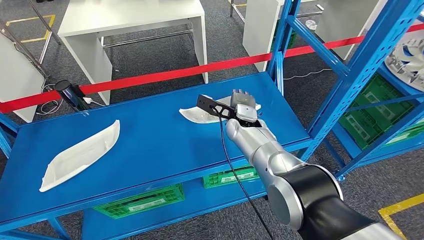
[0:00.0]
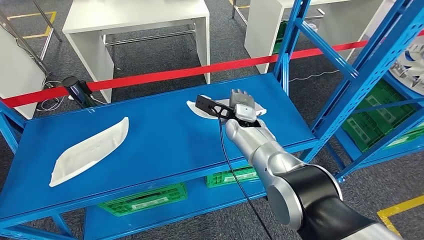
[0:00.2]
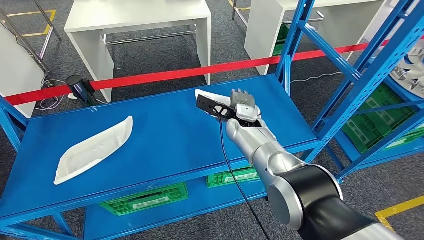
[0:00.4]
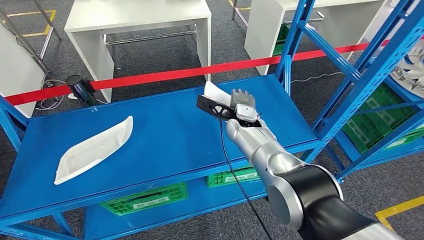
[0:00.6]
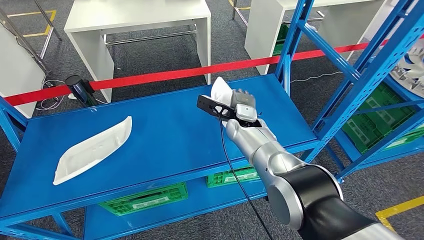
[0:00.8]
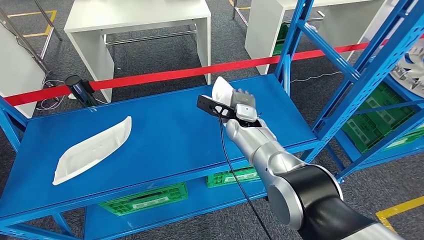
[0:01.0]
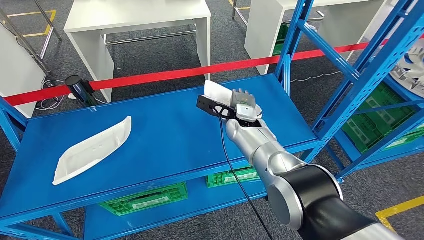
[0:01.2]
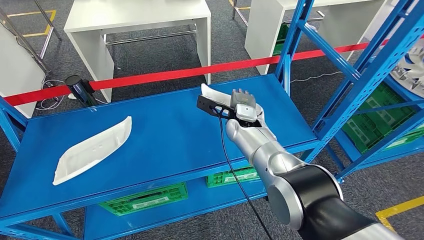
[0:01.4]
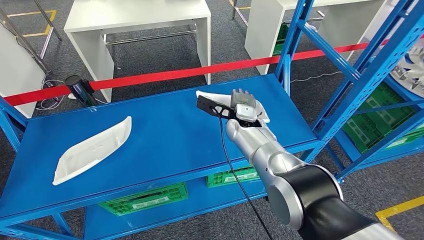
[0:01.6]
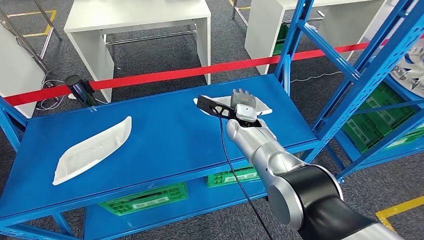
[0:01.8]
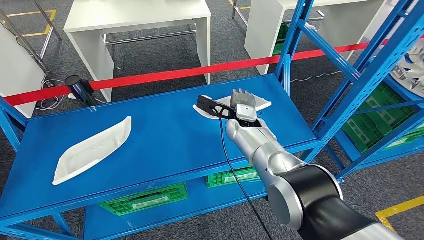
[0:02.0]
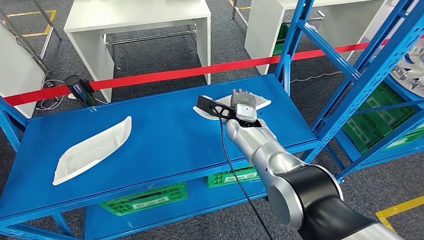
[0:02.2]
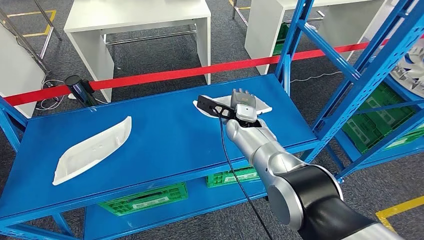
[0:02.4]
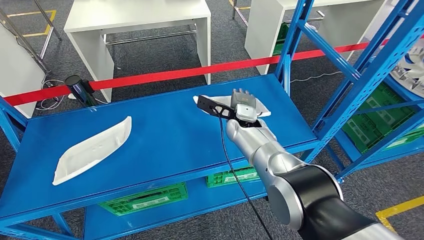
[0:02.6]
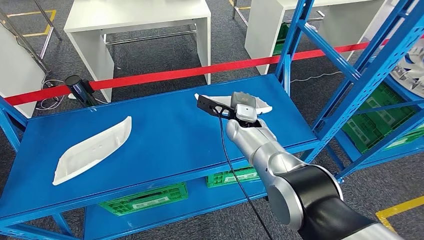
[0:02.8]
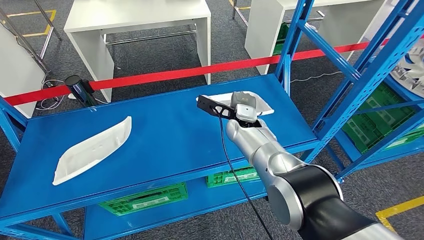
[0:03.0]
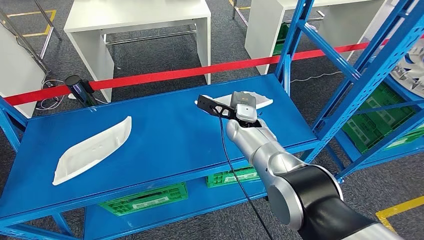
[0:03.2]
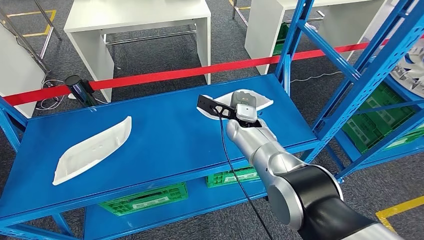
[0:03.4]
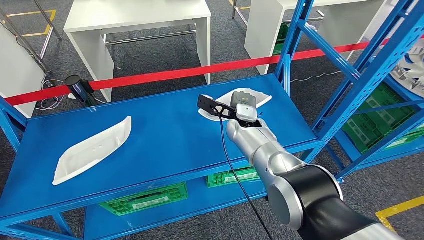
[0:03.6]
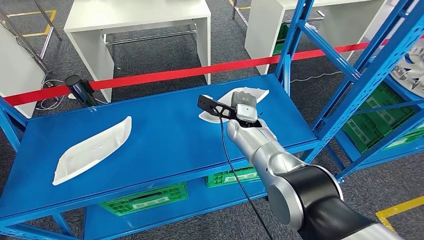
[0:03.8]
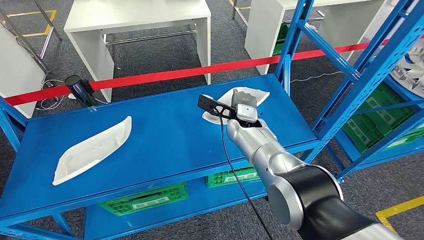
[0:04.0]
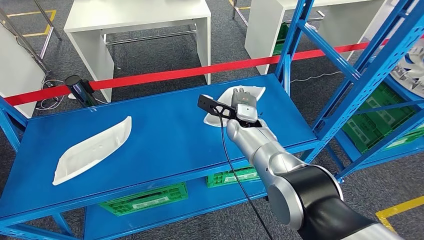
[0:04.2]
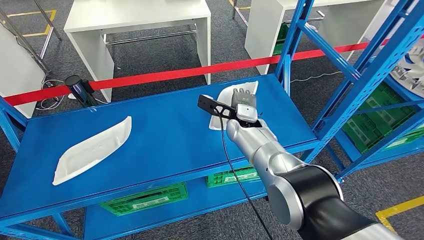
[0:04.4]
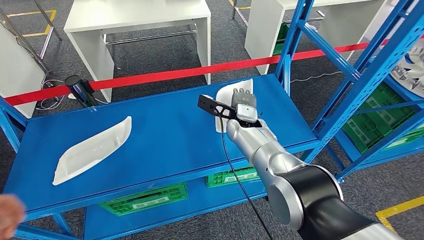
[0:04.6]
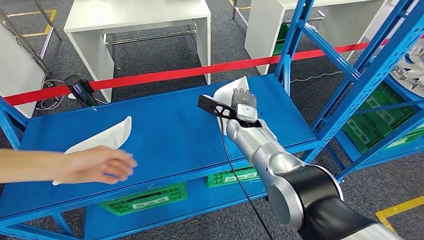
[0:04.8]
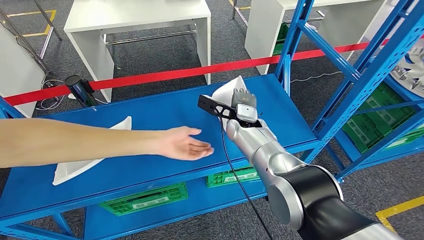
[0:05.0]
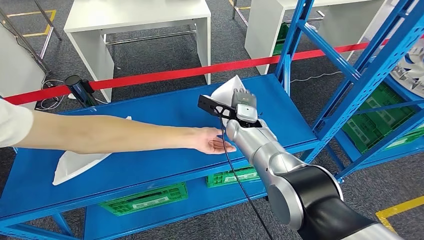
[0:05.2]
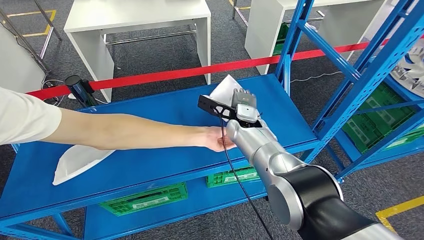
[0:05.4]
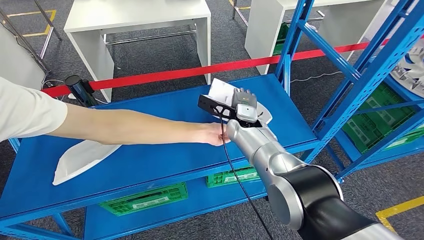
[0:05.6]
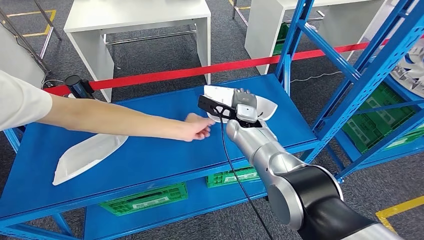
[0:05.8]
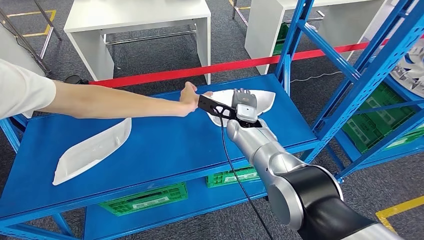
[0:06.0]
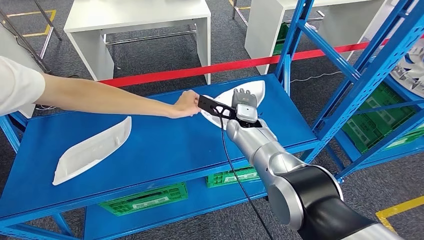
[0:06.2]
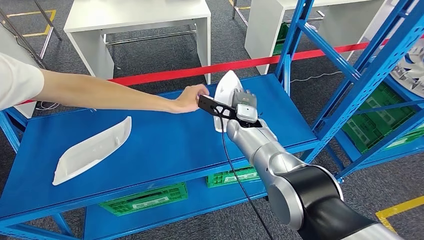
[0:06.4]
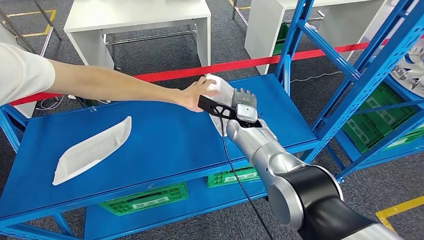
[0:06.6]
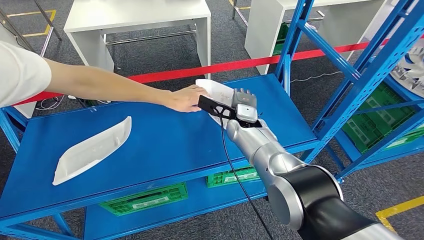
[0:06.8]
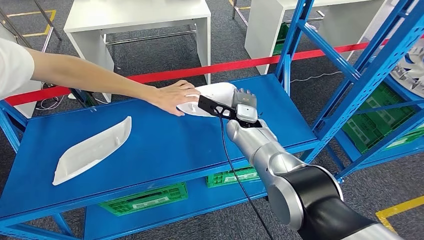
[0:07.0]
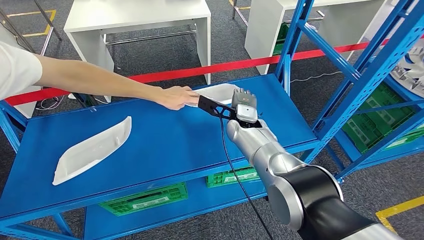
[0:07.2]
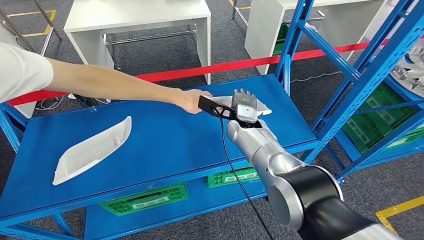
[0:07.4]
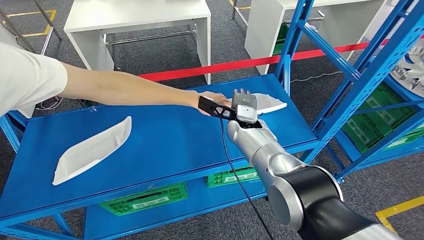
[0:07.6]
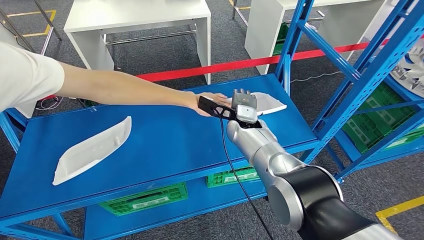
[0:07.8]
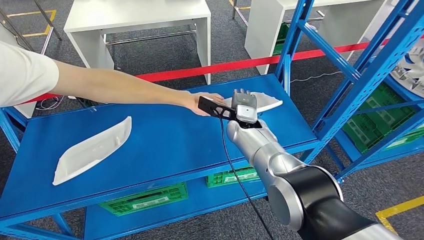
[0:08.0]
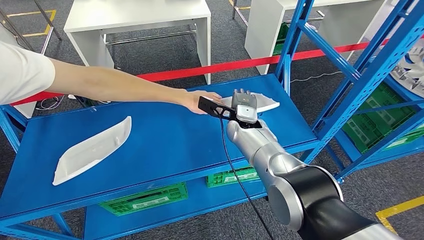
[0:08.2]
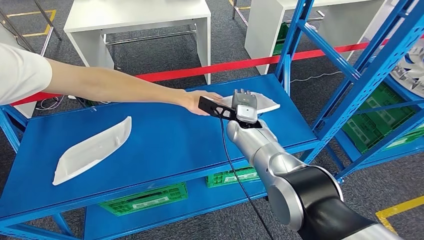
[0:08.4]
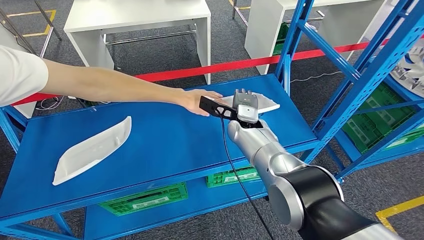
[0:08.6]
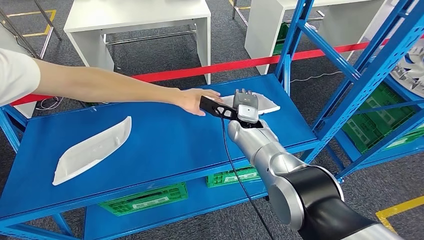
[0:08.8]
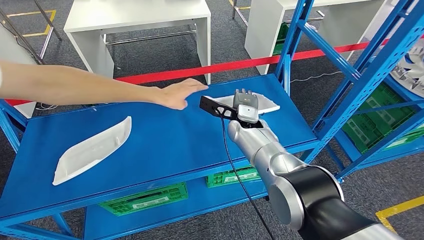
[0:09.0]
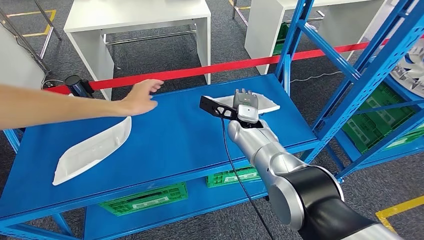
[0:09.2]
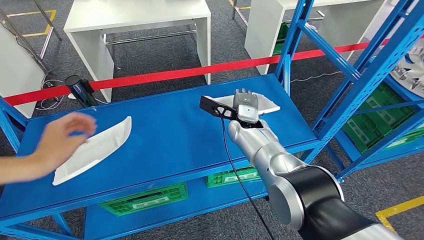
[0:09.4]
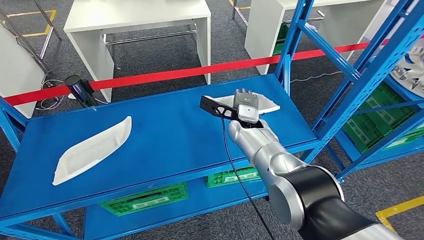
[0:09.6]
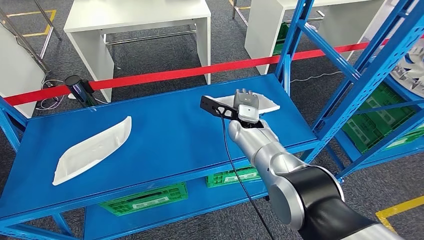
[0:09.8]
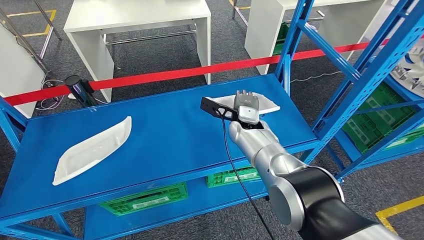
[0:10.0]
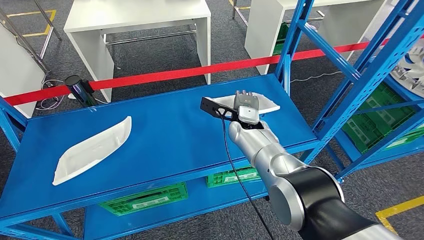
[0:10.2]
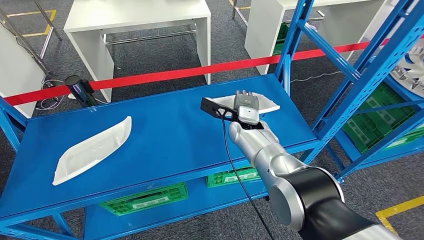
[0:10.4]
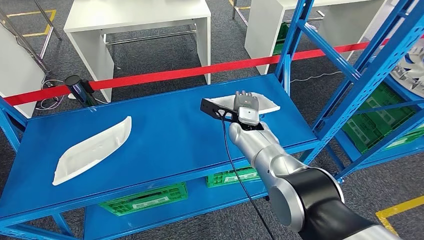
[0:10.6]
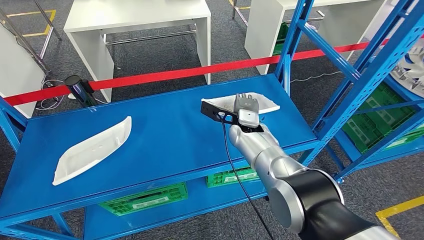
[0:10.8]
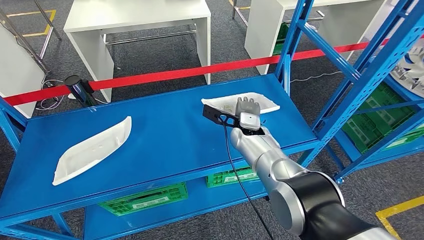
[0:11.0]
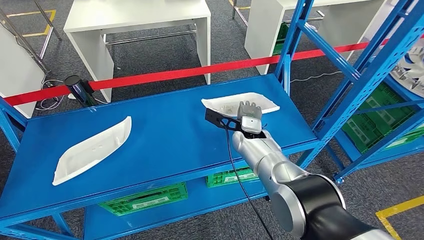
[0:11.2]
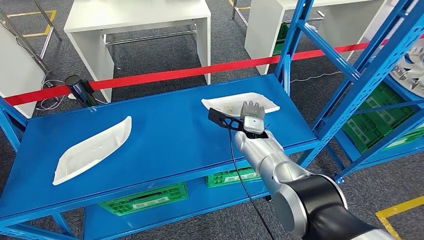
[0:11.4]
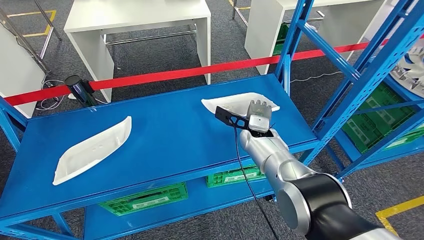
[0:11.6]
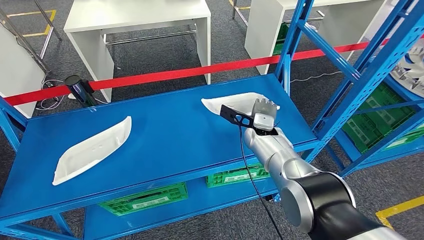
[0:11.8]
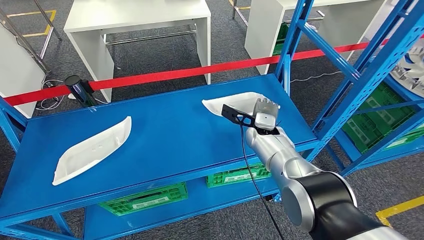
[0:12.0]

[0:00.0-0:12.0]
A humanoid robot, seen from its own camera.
0:01.6 to 0:10.4: Neither hand changes place.
0:10.4 to 0:12.0: The right hand travels to the right by approximately 5 cm.

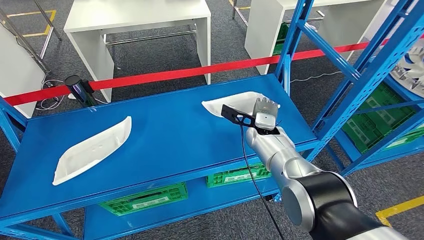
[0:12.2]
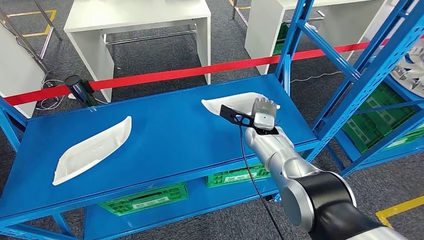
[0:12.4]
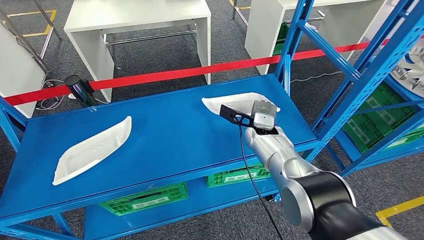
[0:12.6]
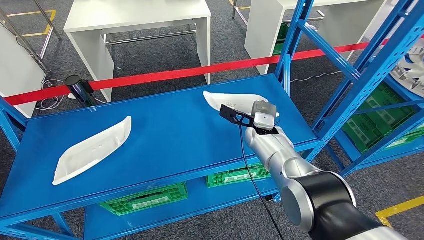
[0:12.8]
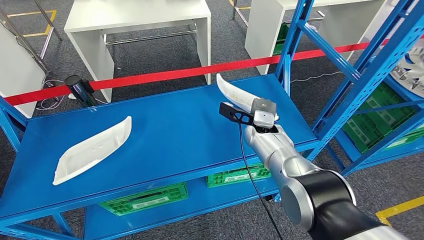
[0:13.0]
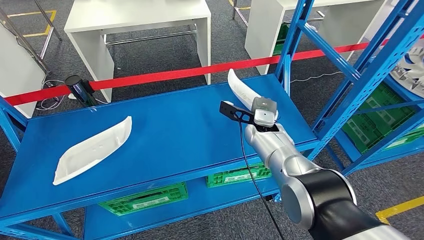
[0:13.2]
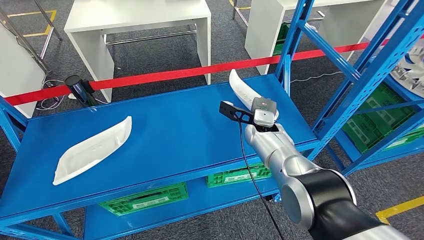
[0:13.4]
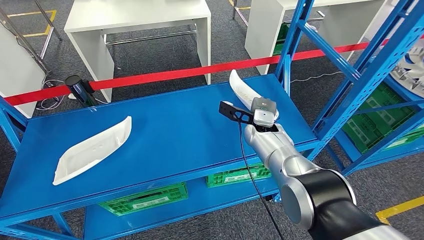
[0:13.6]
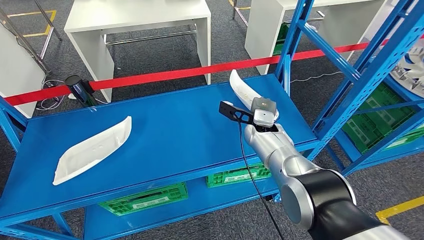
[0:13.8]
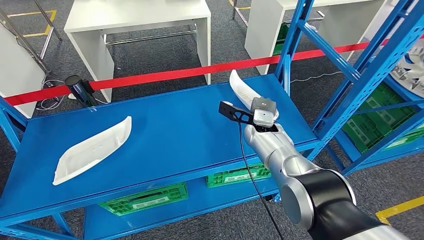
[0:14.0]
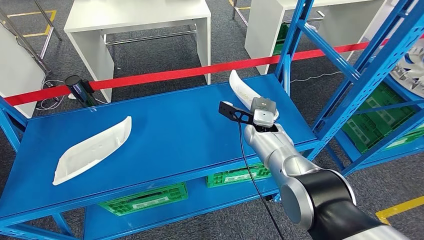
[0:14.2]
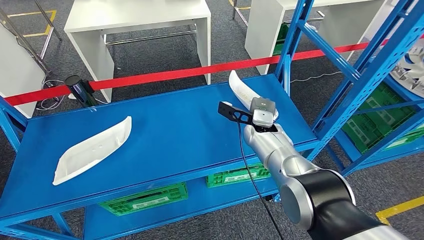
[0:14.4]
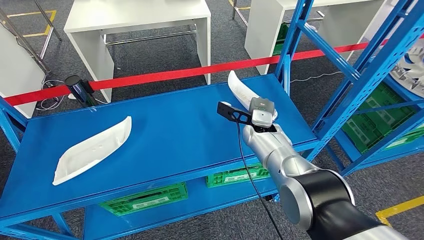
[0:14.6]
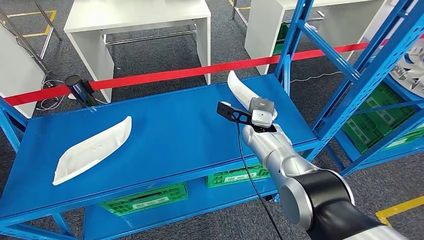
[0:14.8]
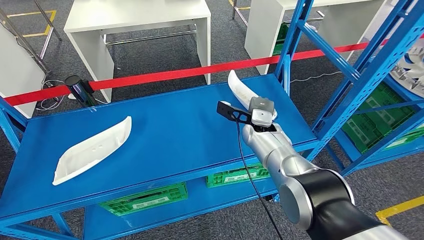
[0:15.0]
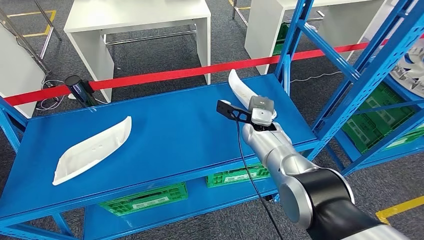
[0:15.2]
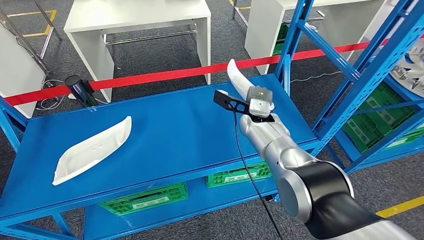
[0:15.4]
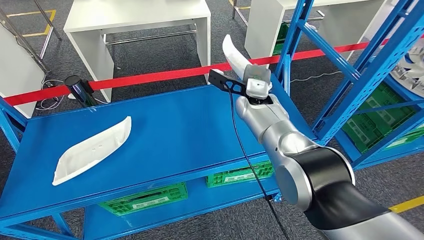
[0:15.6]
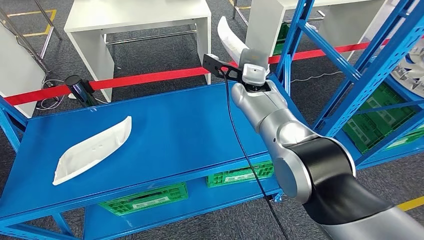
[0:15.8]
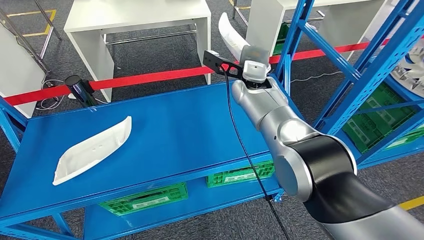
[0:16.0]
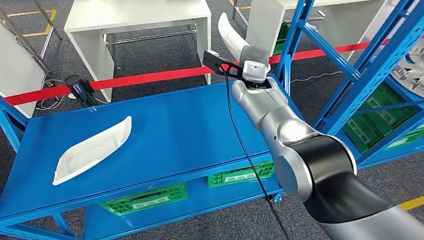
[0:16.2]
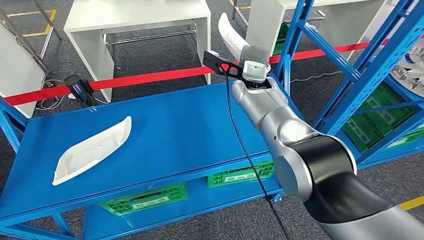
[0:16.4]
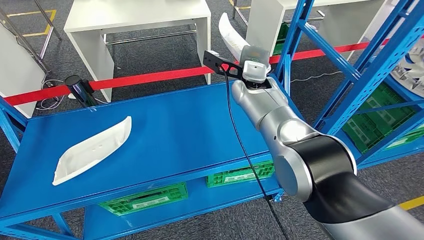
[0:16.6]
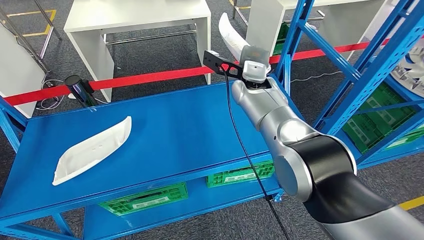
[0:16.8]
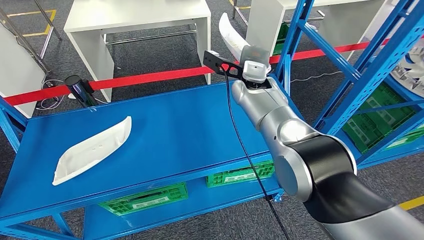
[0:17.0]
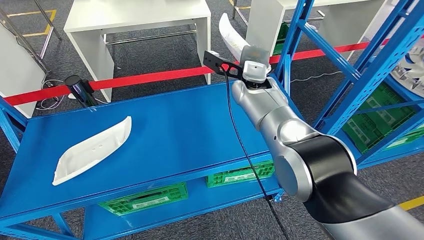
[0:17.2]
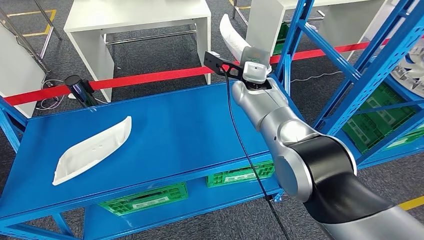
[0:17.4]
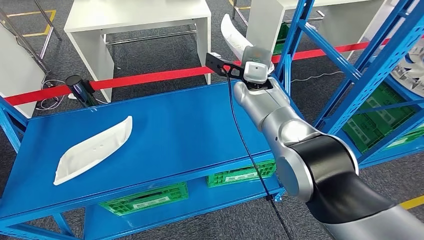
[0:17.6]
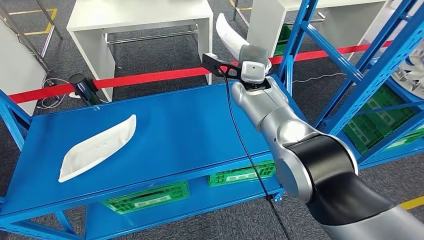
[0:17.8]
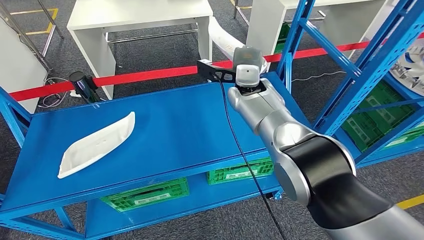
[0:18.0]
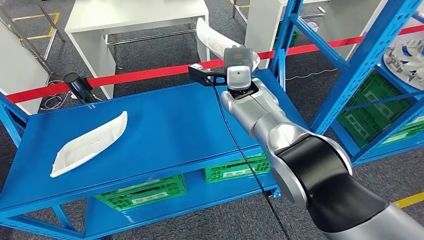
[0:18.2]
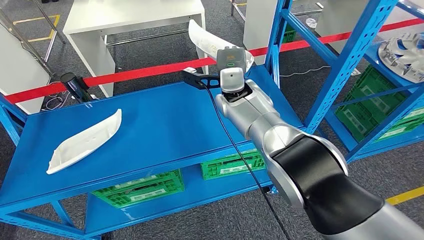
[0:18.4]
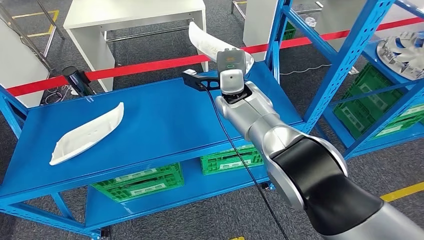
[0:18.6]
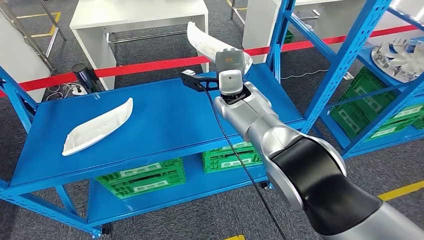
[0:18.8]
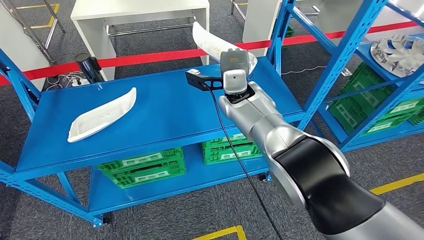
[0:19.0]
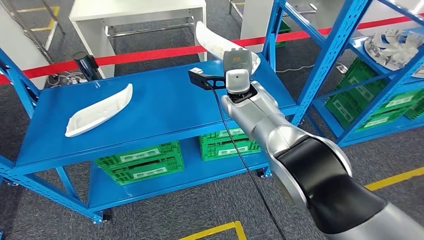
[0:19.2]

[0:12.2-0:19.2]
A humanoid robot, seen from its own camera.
Step, 0:12.2 to 0:17.0: Pick up the small component from the shelf.
0:12.2 to 0:13.6: The two hands keep their place.
0:13.6 to 0:15.0: Both hands stay put.
0:15.0 to 0:16.4: The right hand heads upward and forward, covering approximately 15 cm.
0:16.4 to 0:17.8: Both hands stay put.
